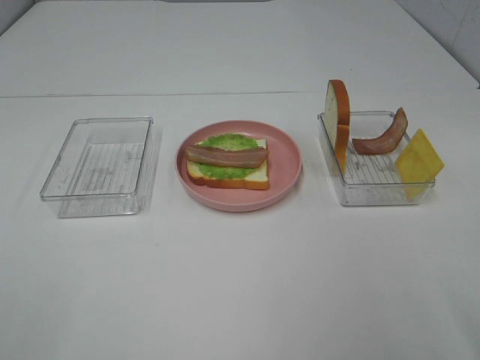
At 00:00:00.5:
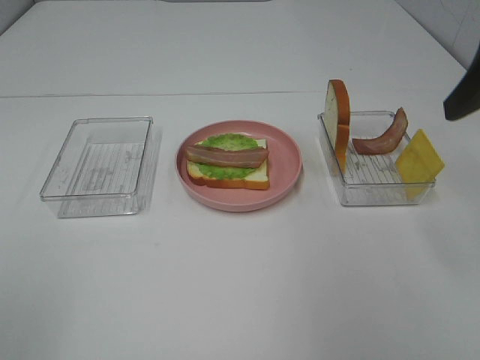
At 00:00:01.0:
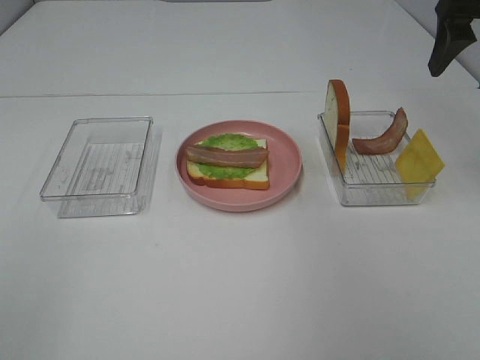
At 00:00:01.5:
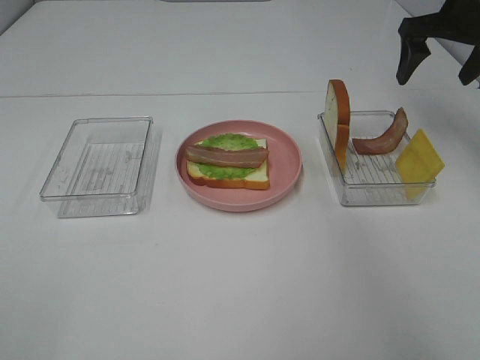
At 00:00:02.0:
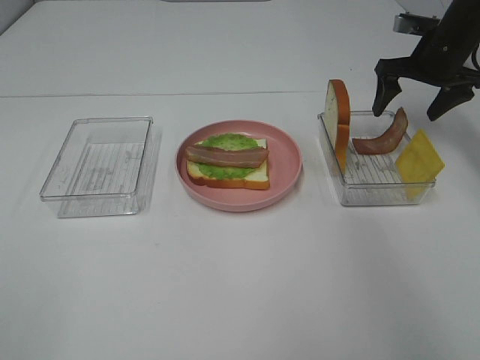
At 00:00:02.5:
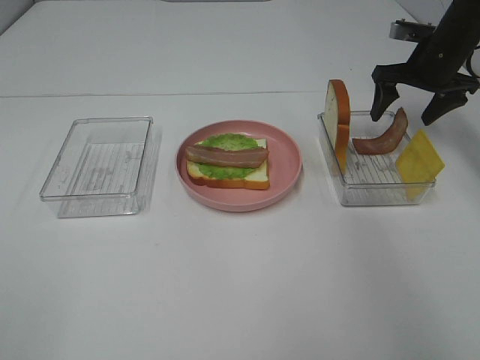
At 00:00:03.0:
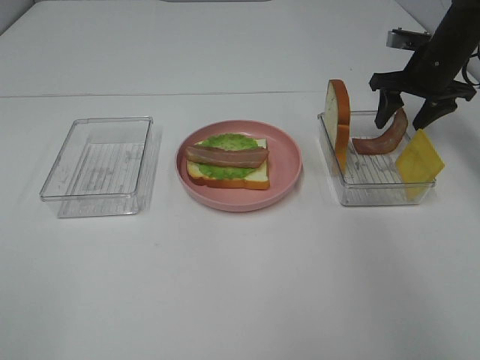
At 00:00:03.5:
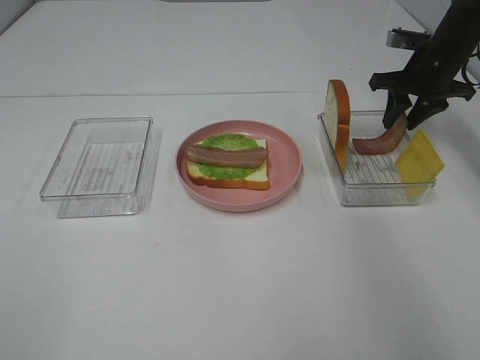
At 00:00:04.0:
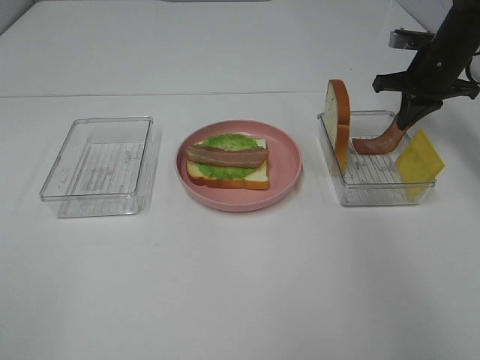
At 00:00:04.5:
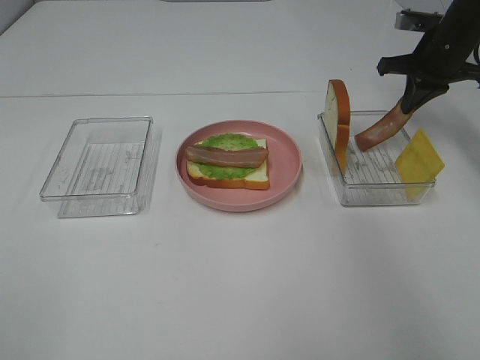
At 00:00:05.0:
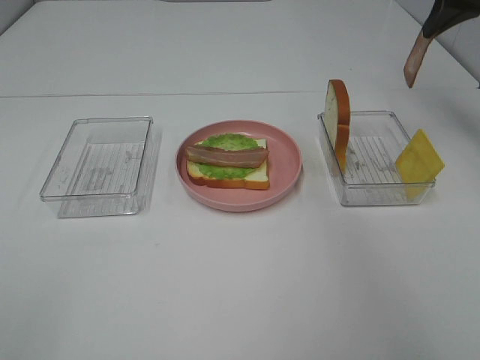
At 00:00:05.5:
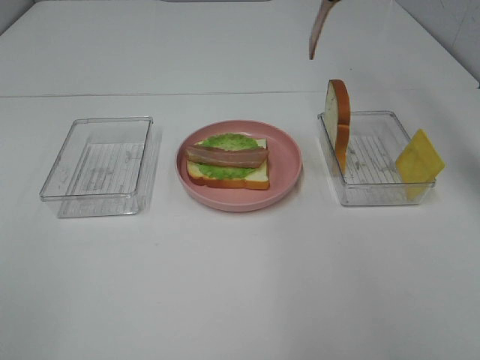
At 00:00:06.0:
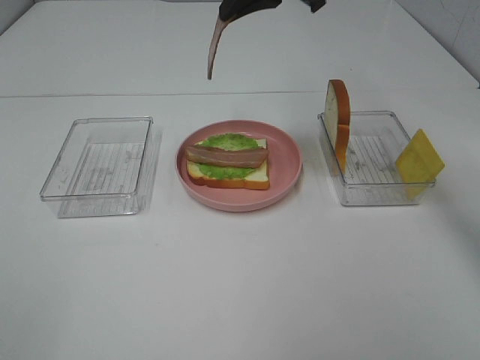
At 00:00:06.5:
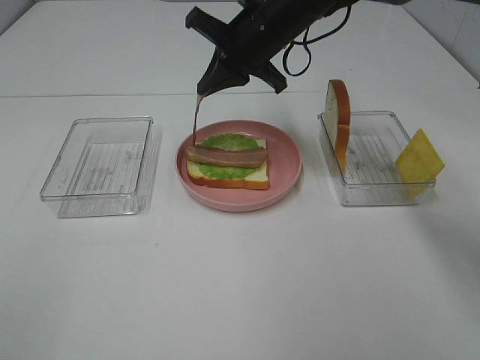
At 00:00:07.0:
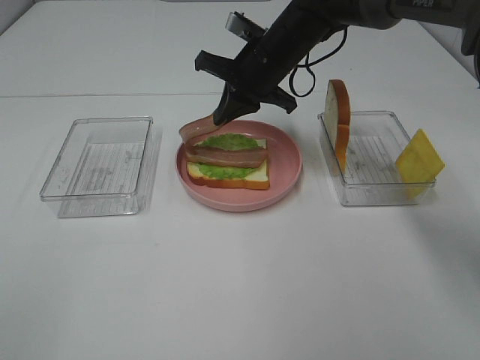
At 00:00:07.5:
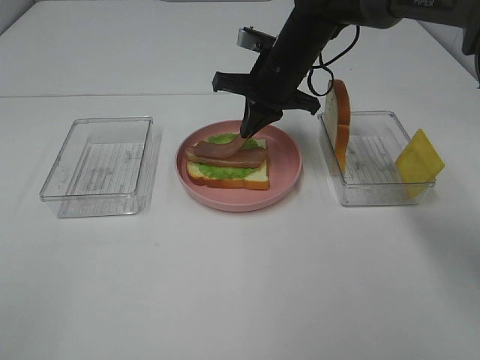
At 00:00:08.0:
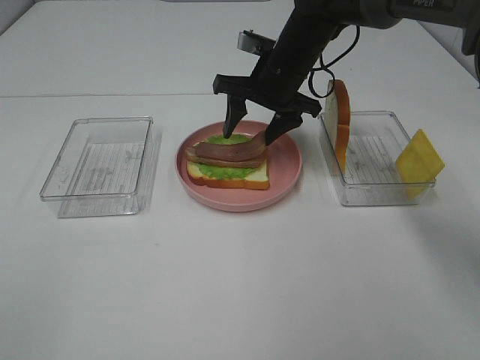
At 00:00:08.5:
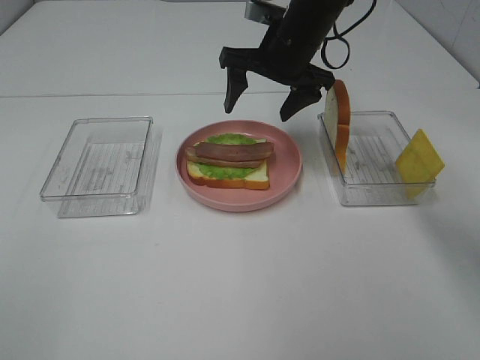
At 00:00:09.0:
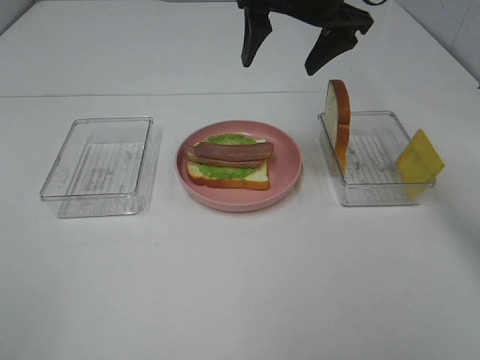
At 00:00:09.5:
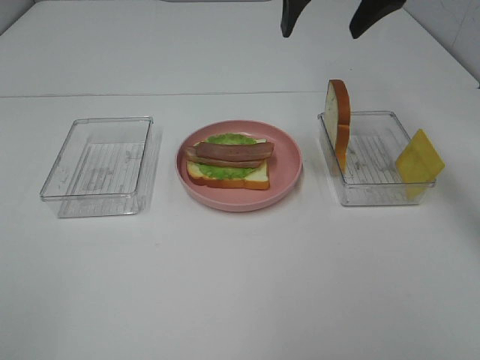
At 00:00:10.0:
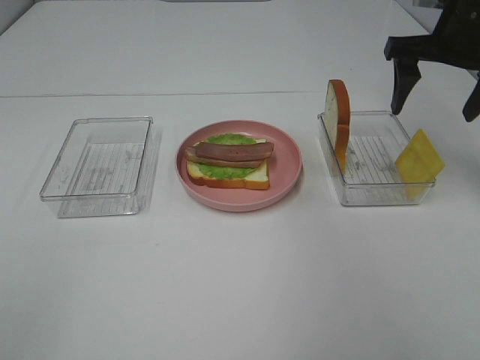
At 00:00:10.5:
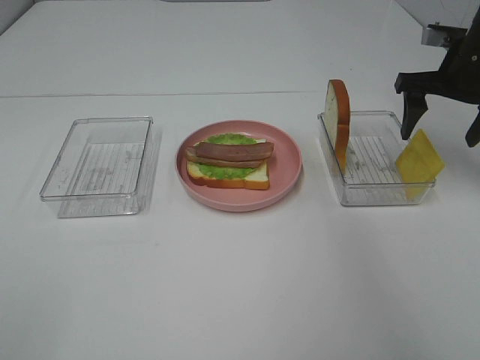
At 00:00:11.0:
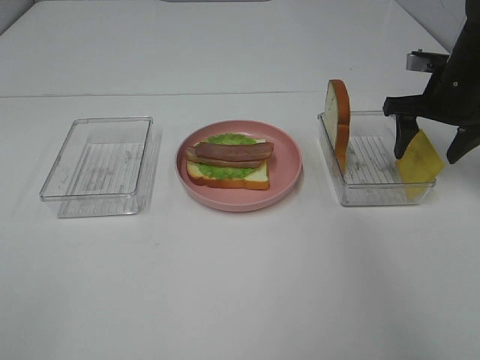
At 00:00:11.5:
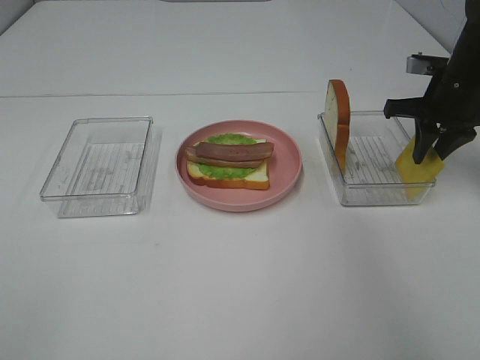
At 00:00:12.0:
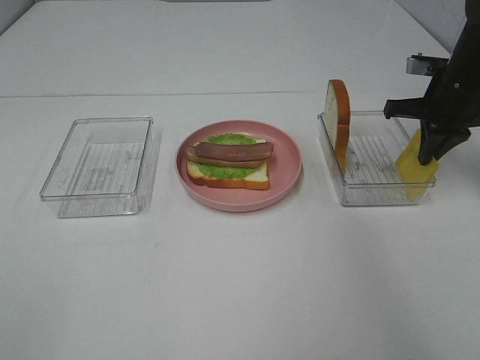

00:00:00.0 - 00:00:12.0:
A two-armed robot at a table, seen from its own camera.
Task of the whole recording: Make sandwiches.
Step, 00:00:00.0 - 00:00:04.0: Right hand:grab the bacon.
Step, 00:00:04.5 - 00:00:08.0: Right hand:place bacon on bacon.
00:00:00.0 - 00:00:02.0: The right gripper shifts roughly 40 cm forward.
00:00:02.0 - 00:00:04.0: The right gripper closes.
00:00:04.0 - 00:00:06.0: The right gripper shifts approximately 30 cm to the left and upward.
00:00:06.0 - 00:00:08.0: The right gripper shifts some 15 cm downward, and opens up.
00:00:08.0 - 00:00:10.0: The right gripper is displaced to the right and upward by approximately 20 cm.
00:00:10.0 - 00:00:12.0: The right gripper goes roughly 10 cm downward, and closes its fingers.

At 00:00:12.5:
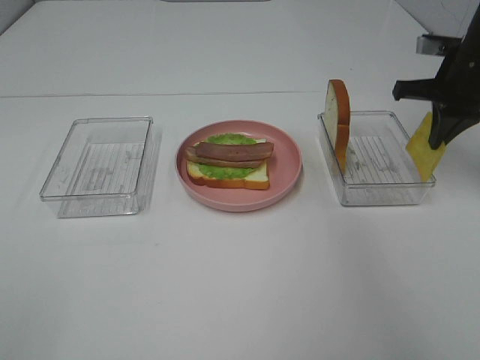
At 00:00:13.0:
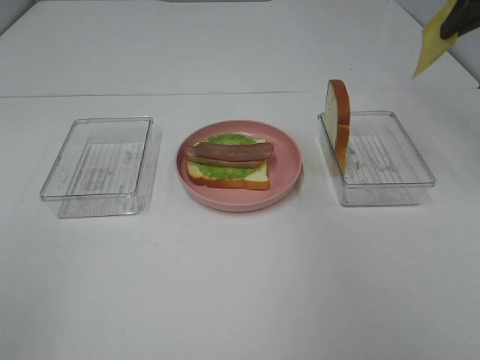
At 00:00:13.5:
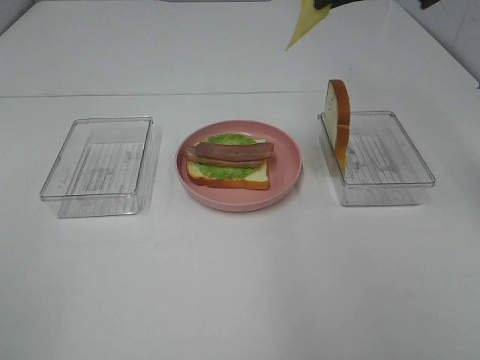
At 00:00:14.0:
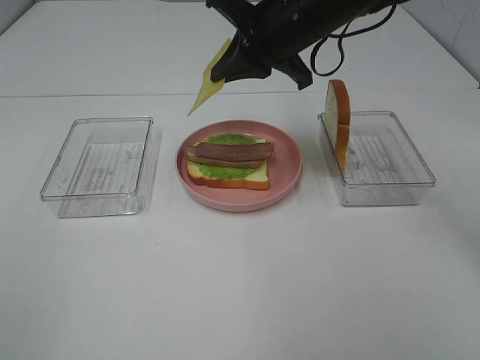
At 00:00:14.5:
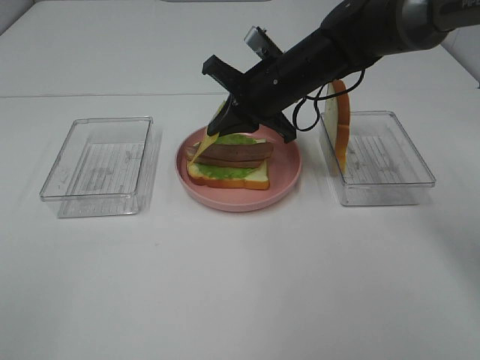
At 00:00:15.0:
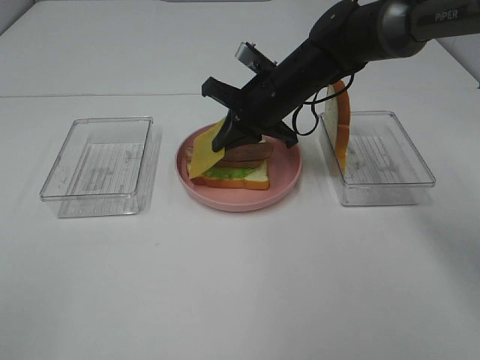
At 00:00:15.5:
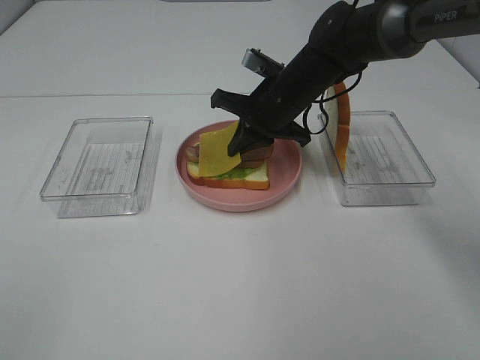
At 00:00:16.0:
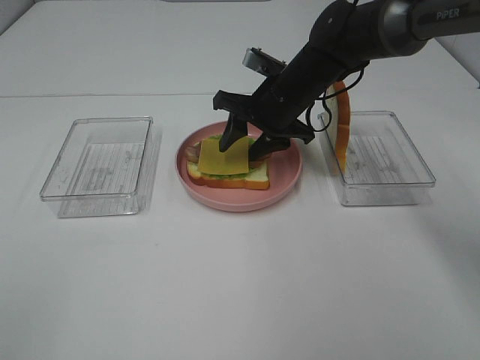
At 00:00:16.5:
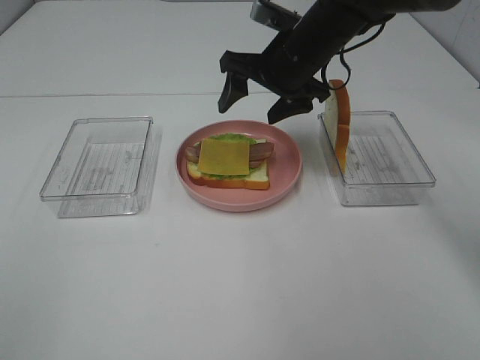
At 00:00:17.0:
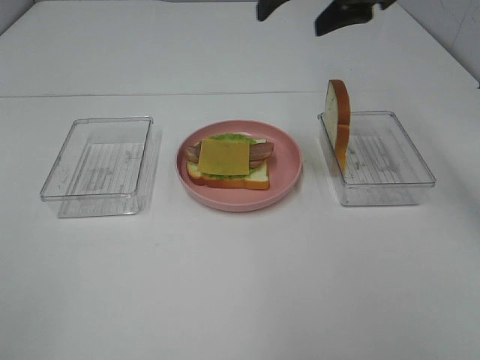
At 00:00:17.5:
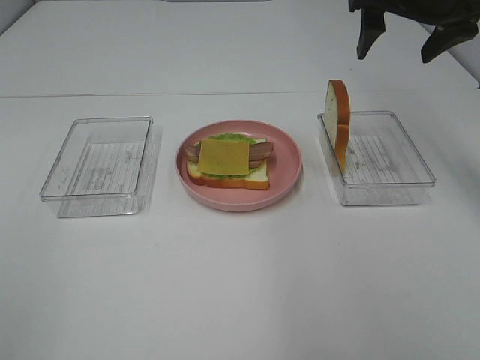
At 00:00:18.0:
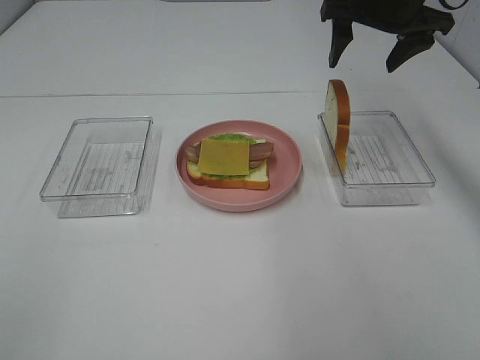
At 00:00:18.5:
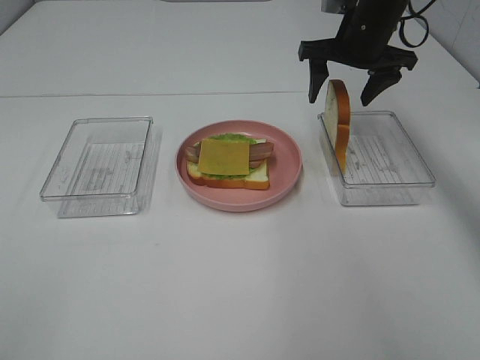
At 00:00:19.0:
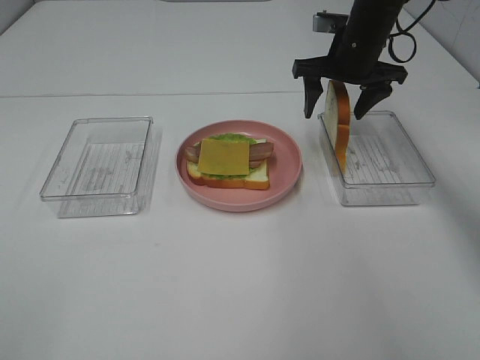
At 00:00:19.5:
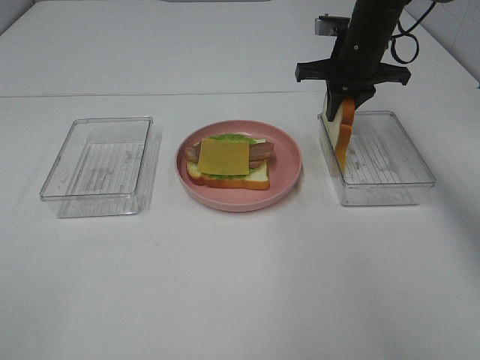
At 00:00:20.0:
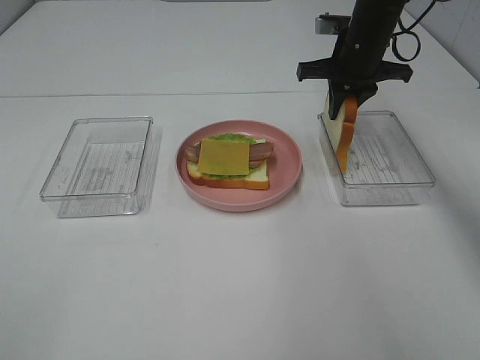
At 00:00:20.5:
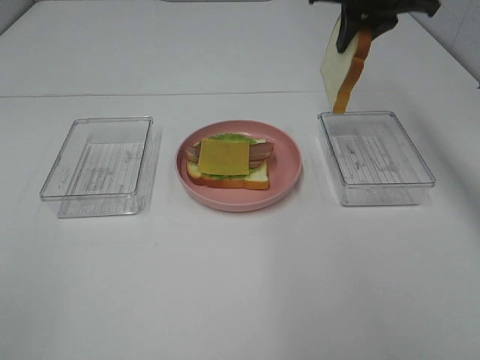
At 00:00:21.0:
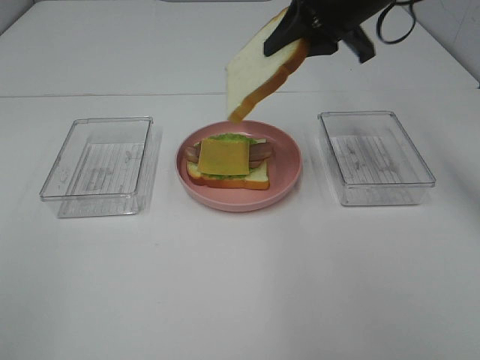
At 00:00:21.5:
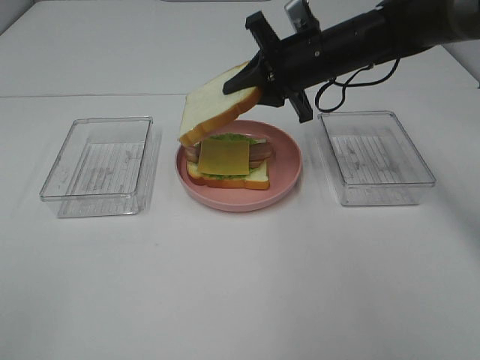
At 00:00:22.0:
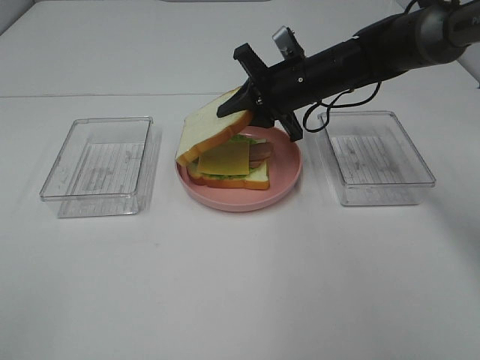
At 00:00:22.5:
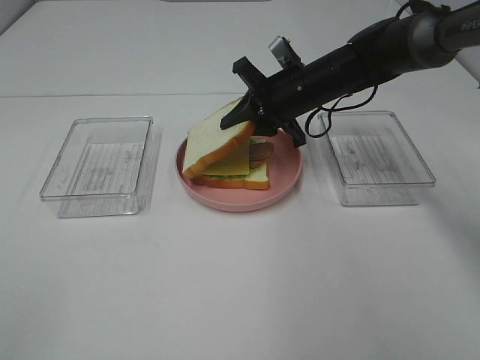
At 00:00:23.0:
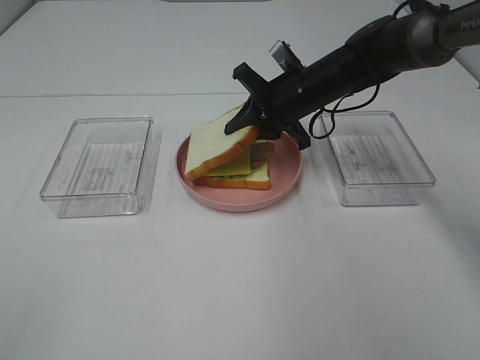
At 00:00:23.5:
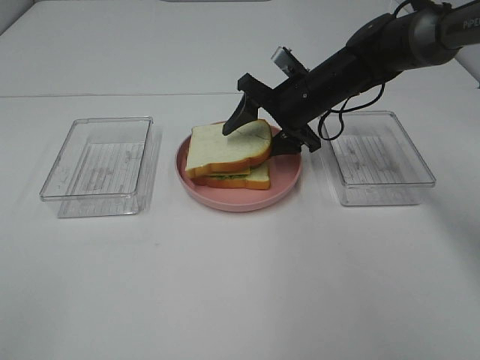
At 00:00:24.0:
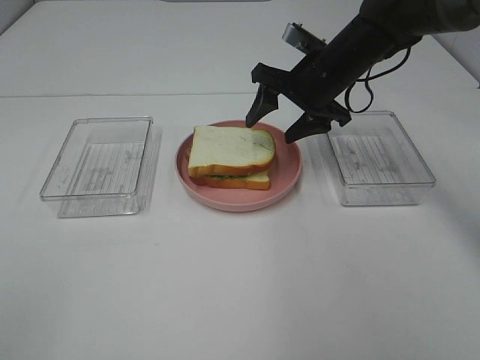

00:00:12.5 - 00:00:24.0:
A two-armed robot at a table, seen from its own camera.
Task of the whole recording: Make sandwiches.
Step, 00:00:12.5 - 00:00:16.5: Right hand:place the cheese slice on top of the bacon.
Step, 00:00:17.0 - 00:00:19.5: Right hand:grab the bread slice.
00:00:12.5 - 00:00:14.5: The right gripper moves to the left, approximately 20 cm.
00:00:14.5 - 00:00:16.5: The right gripper ends up some 5 cm from where it was, and opens.
00:00:16.5 - 00:00:18.5: The right gripper moves to the right and forward, approximately 10 cm.
00:00:18.5 - 00:00:20.0: The right gripper closes up.
00:00:20.0 - 00:00:22.0: The right gripper moves to the left, some 5 cm, and goes upward and returns, about 10 cm each way.
00:00:22.0 - 00:00:24.0: The right gripper opens.

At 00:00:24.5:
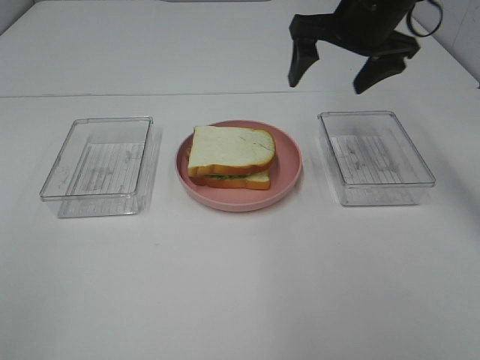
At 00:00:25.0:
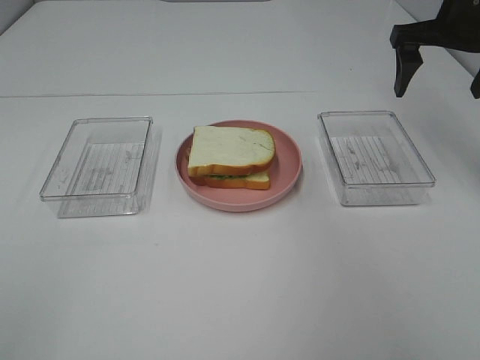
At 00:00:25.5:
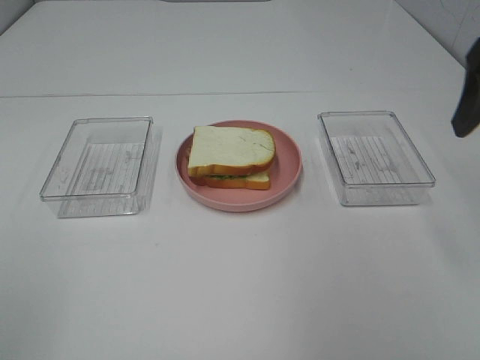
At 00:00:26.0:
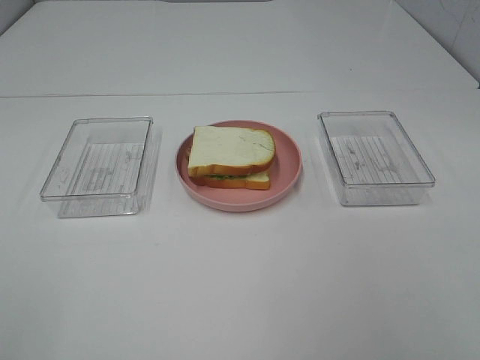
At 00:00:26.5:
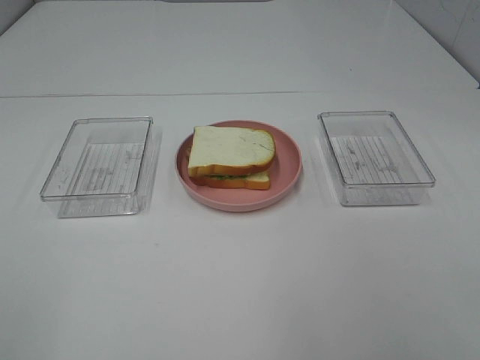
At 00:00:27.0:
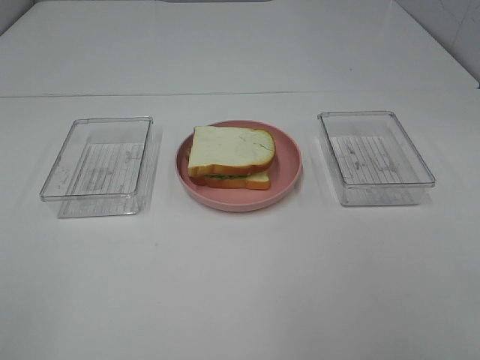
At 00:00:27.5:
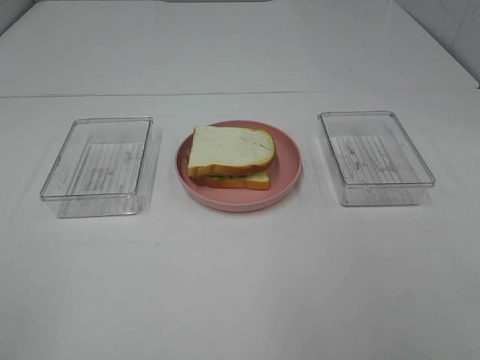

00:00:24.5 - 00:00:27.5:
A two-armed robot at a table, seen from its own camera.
Task of the whole recording: Make sandwiches.
00:00:24.5 - 00:00:26.0: The right gripper is displaced backward by roughly 35 cm.
